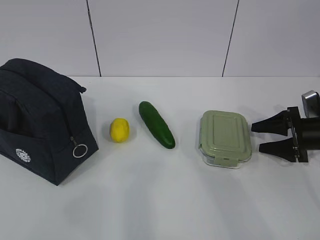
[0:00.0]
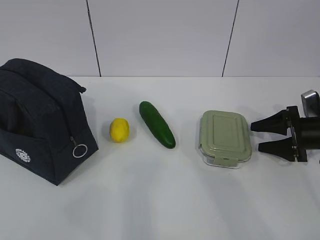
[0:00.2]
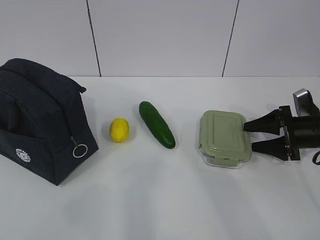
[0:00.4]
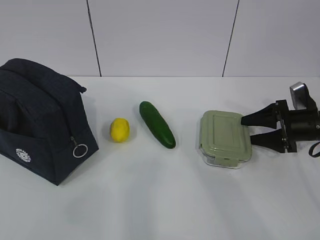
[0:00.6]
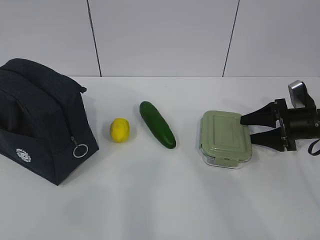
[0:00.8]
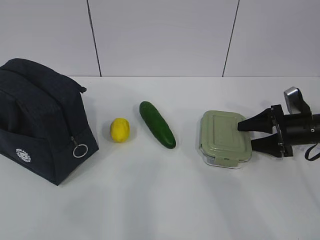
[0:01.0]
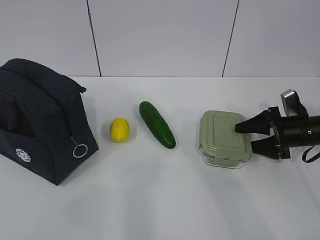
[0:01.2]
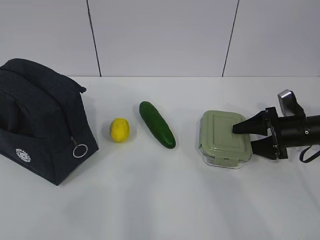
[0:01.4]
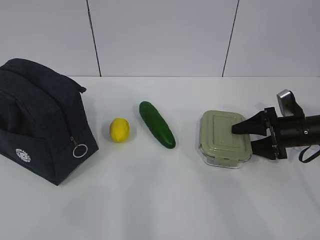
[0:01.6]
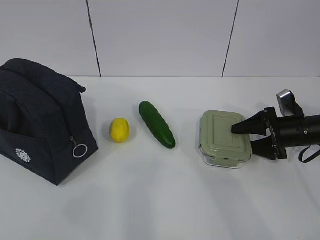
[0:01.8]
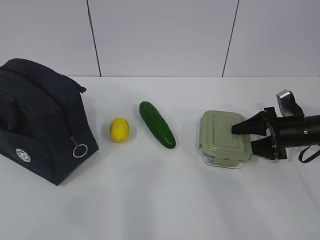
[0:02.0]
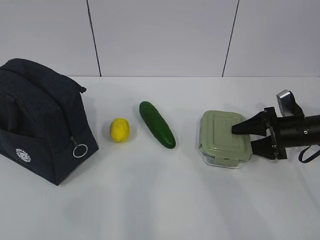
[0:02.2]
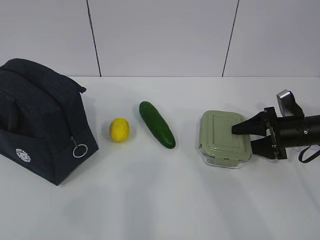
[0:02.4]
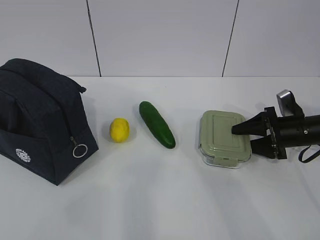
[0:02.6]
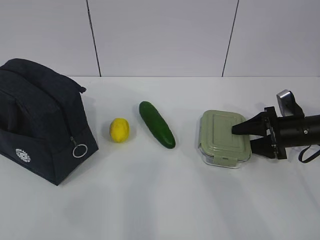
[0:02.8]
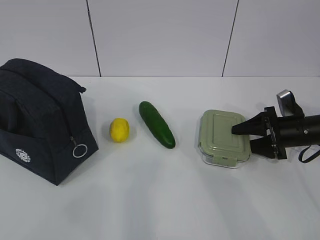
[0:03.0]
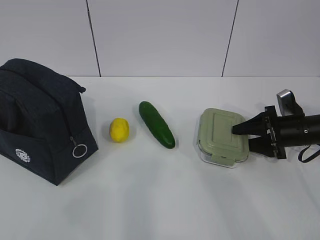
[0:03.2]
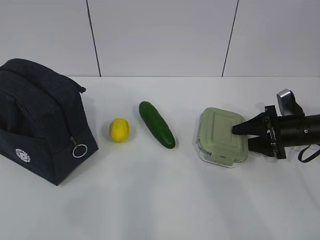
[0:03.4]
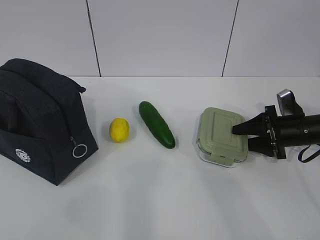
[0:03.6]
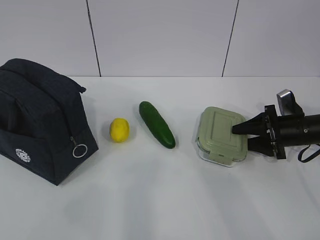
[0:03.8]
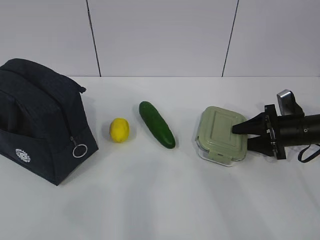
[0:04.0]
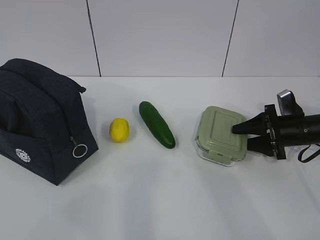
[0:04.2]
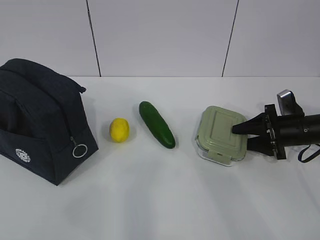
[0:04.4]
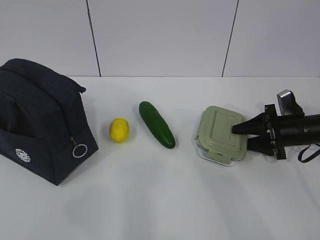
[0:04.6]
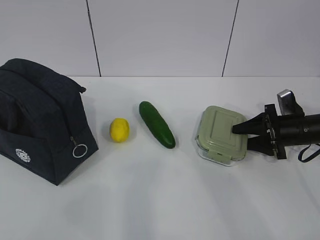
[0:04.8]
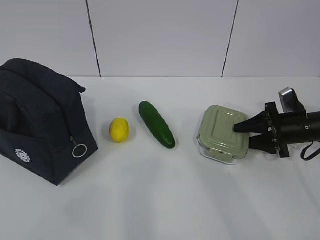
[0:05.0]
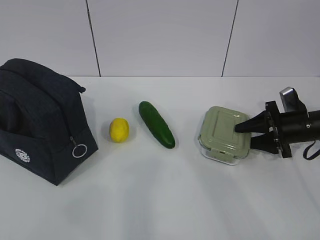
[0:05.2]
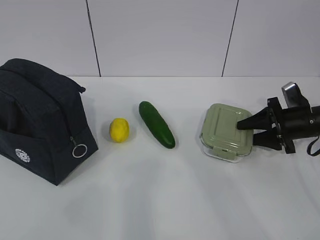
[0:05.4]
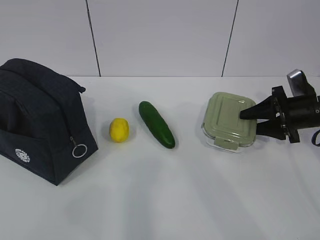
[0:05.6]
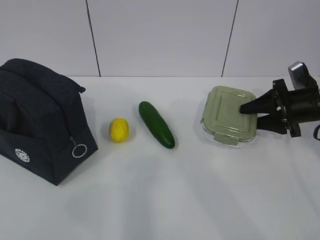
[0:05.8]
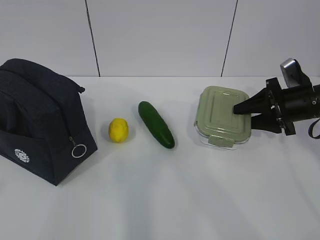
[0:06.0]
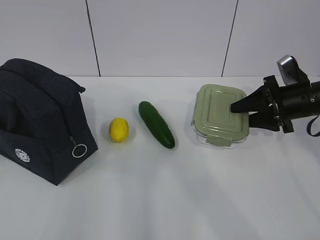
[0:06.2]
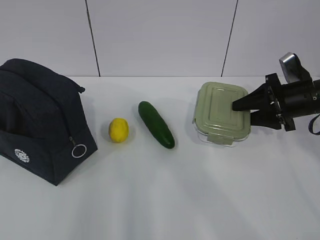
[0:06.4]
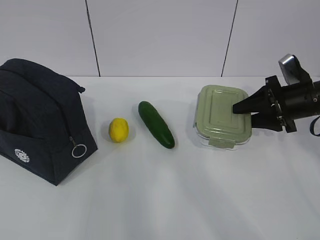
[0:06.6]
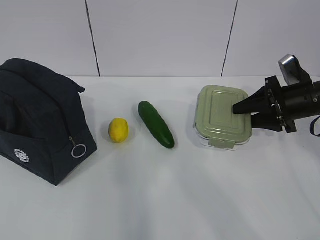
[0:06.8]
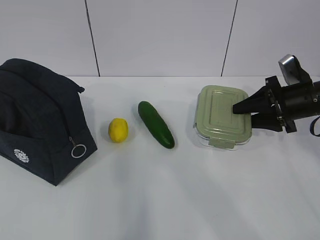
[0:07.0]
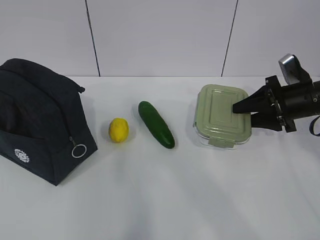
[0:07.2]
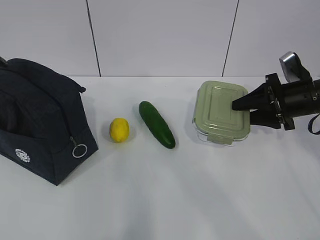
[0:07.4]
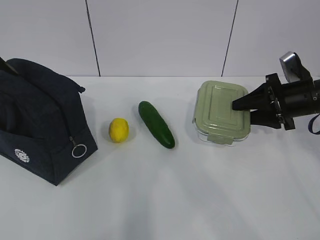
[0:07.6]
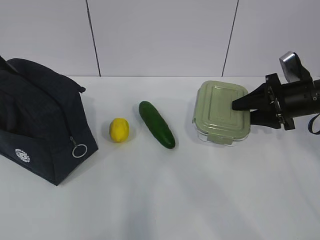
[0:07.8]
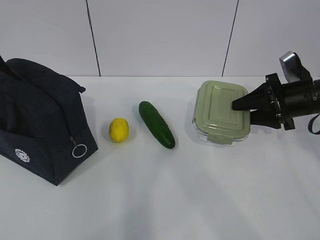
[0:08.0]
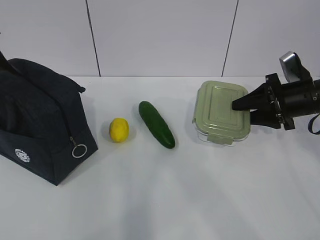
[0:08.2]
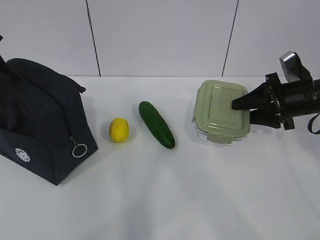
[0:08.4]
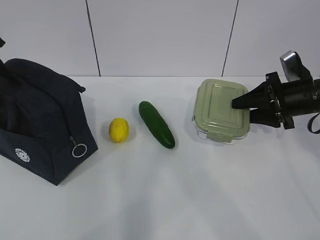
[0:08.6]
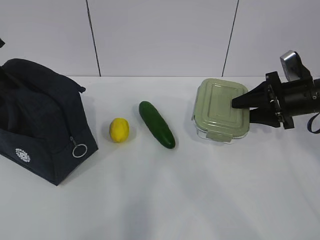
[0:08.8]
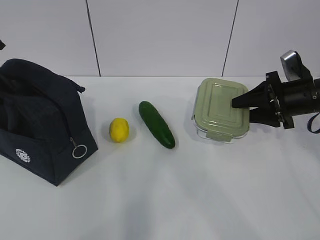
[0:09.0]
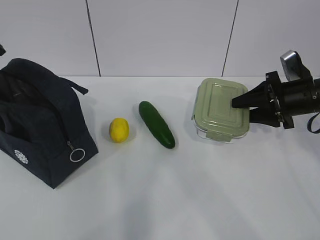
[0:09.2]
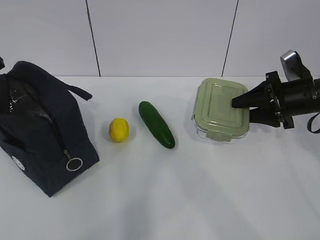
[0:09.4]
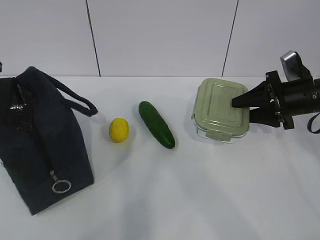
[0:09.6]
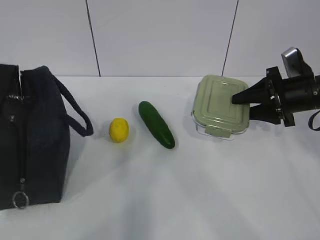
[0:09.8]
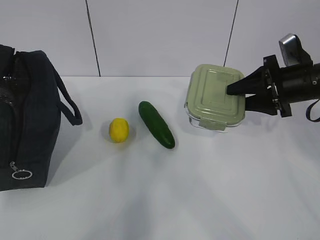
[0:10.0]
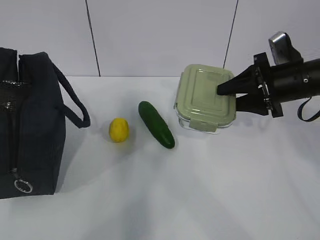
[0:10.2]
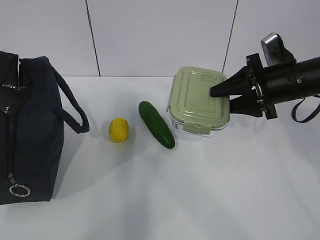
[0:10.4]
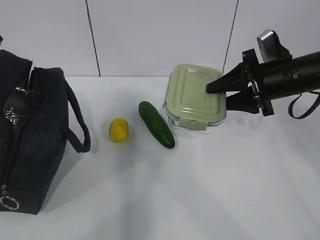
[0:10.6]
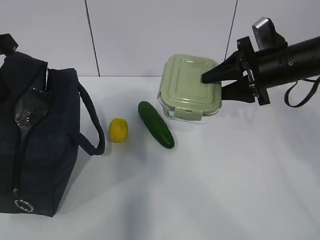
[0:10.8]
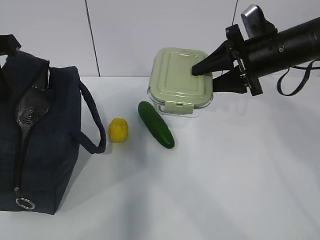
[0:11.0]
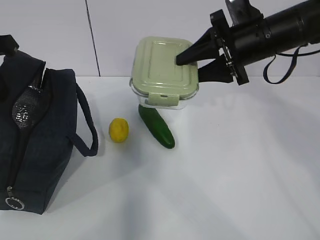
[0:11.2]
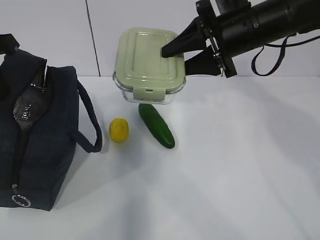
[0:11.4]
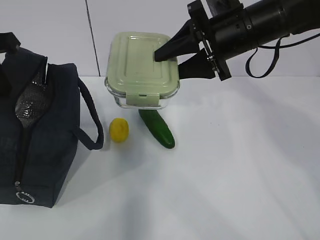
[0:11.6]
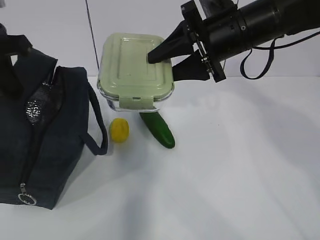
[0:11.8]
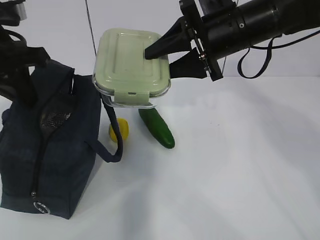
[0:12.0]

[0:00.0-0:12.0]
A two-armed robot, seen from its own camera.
Step, 0:00.0 to 0:02.2: Grab the lunch box with your right hand.
Step, 0:02.4 to 0:09.0: Grab the lunch bag with your left hand.
Step, 0:09.2 to 0:11.4: Place it into the bag with your right hand.
0:00.0 to 0:01.6: There are only small adjustments of the grippers.
0:01.6 to 0:04.4: Neither gripper changes place.
0:04.4 to 0:06.0: The right gripper goes about 10 cm upward.
0:09.0 to 0:10.4: The right gripper heads to the left, covering approximately 5 cm, while the left gripper heads upward, covering about 5 cm, and closes.
0:10.4 to 0:12.0: The right gripper is displaced to the left and upward by about 15 cm, while the left gripper is displaced to the right by roughly 10 cm.

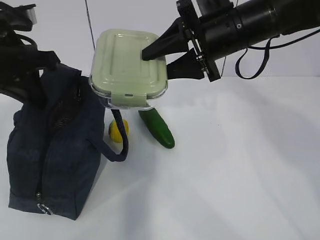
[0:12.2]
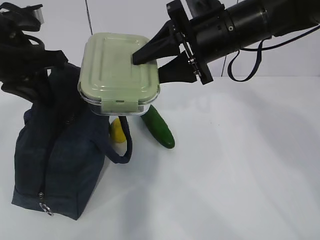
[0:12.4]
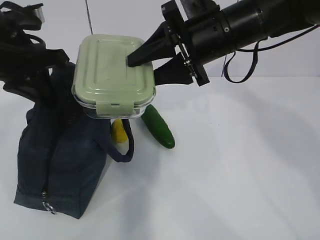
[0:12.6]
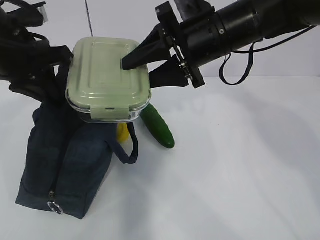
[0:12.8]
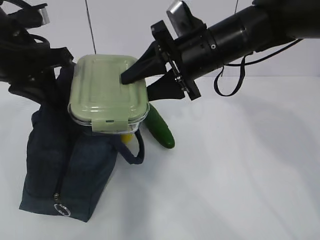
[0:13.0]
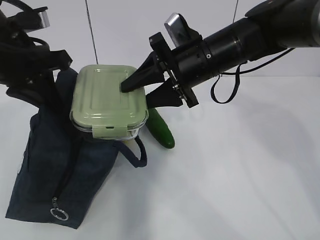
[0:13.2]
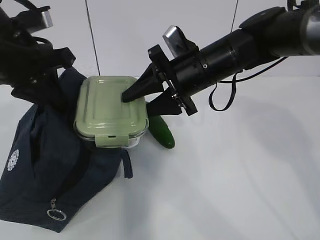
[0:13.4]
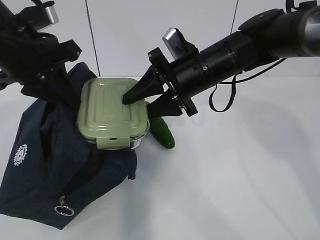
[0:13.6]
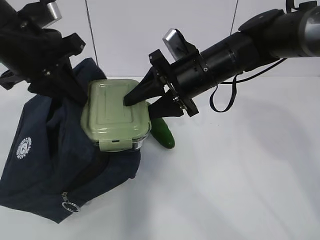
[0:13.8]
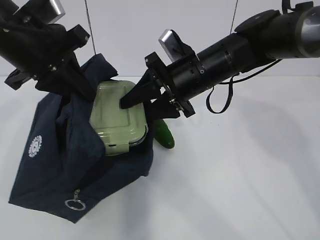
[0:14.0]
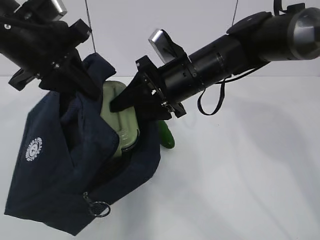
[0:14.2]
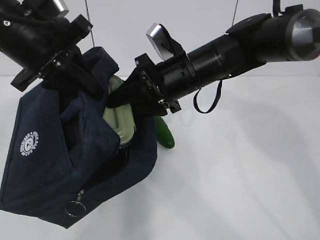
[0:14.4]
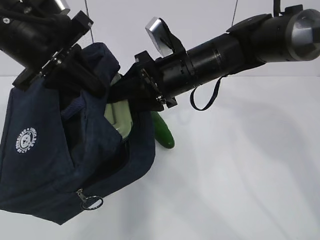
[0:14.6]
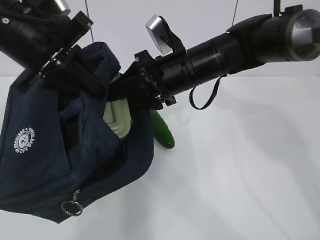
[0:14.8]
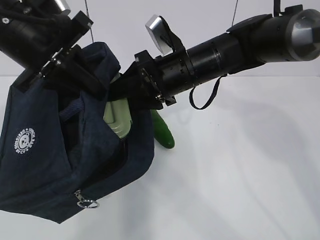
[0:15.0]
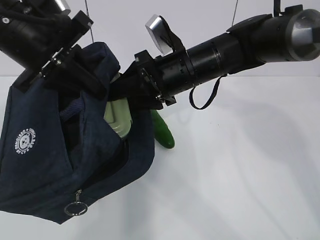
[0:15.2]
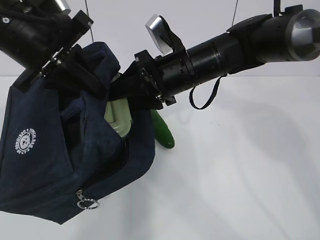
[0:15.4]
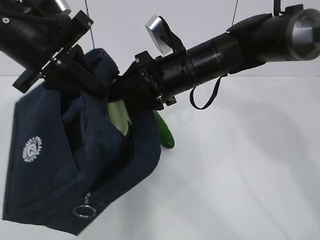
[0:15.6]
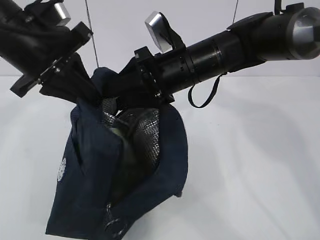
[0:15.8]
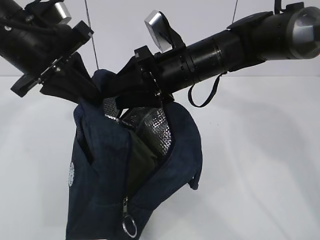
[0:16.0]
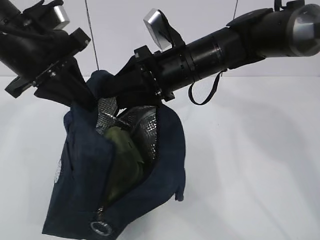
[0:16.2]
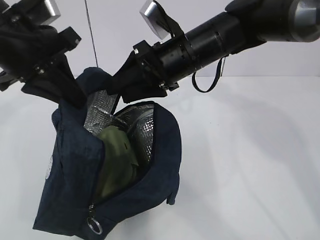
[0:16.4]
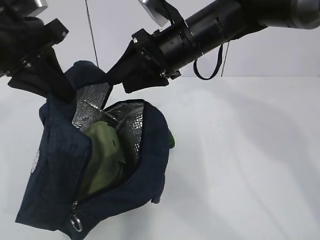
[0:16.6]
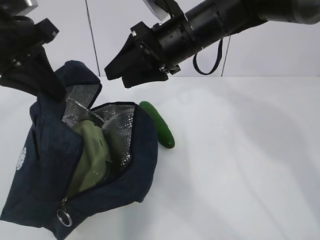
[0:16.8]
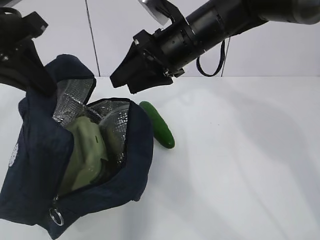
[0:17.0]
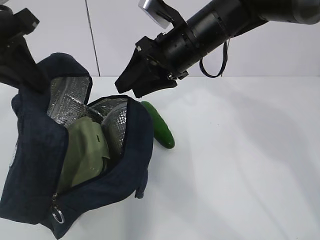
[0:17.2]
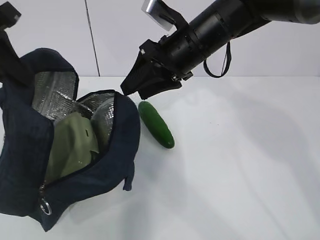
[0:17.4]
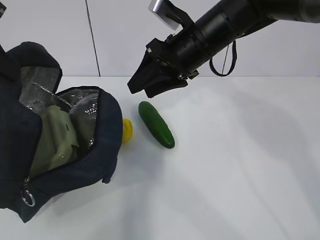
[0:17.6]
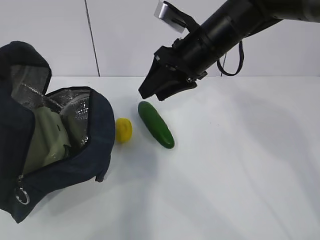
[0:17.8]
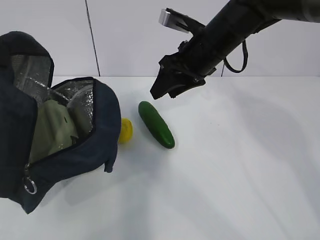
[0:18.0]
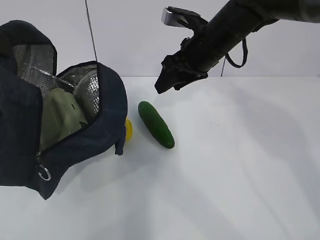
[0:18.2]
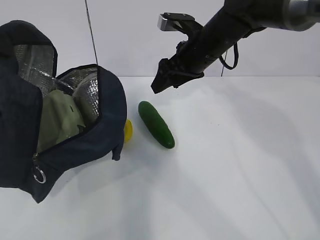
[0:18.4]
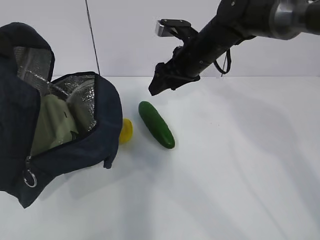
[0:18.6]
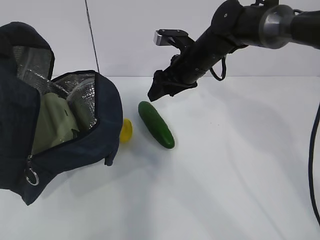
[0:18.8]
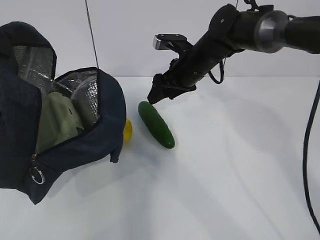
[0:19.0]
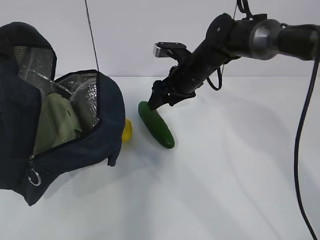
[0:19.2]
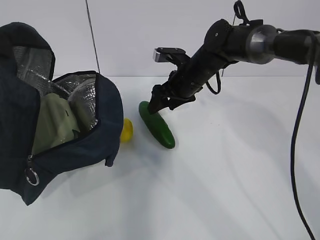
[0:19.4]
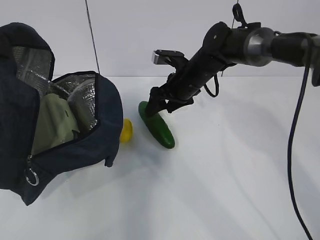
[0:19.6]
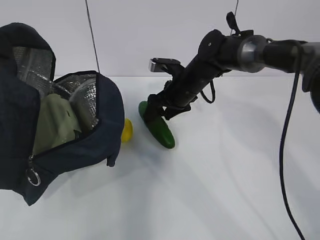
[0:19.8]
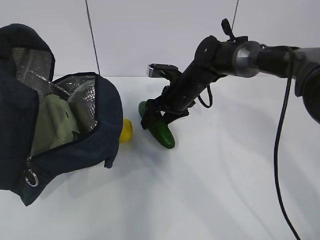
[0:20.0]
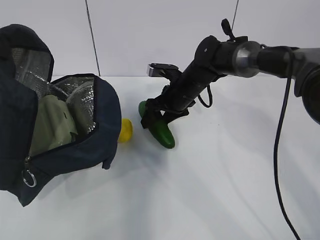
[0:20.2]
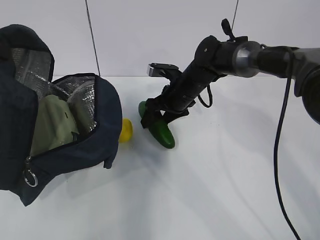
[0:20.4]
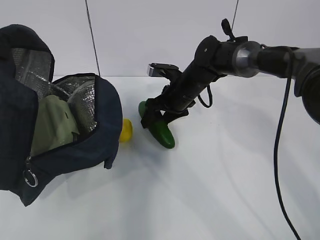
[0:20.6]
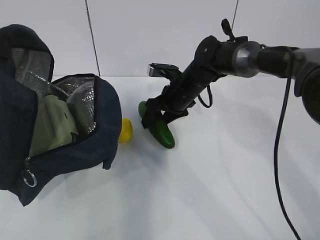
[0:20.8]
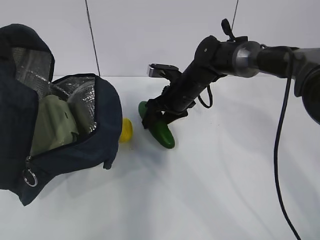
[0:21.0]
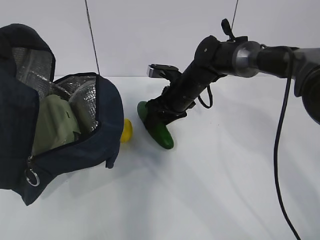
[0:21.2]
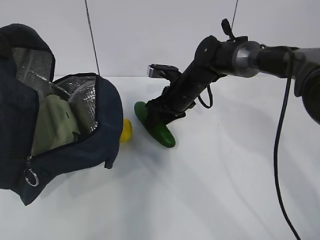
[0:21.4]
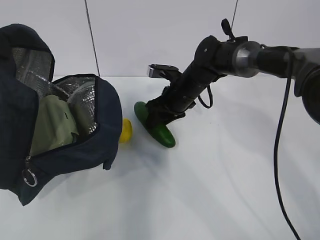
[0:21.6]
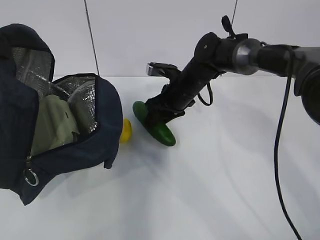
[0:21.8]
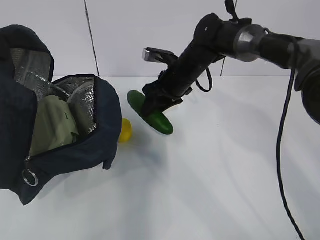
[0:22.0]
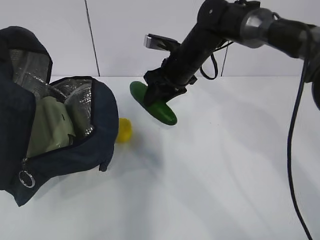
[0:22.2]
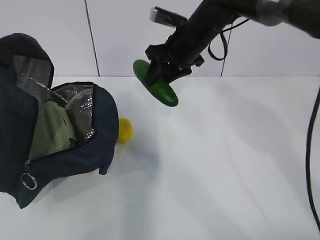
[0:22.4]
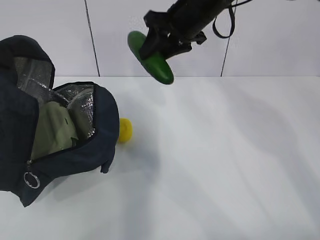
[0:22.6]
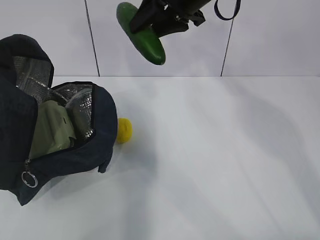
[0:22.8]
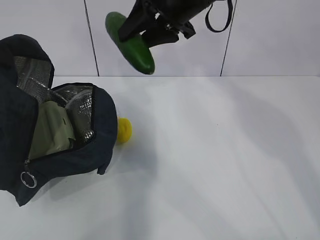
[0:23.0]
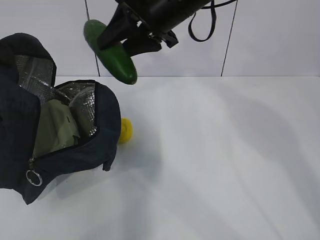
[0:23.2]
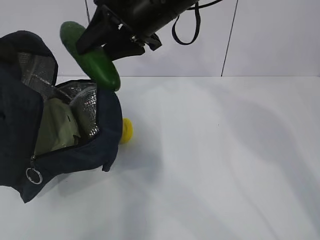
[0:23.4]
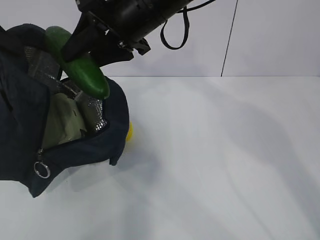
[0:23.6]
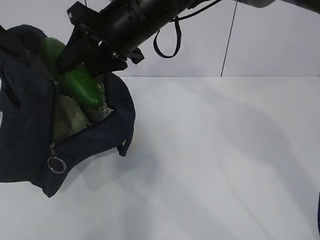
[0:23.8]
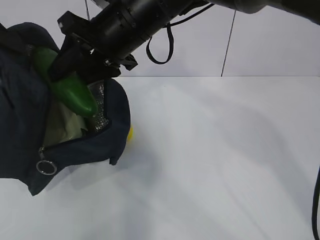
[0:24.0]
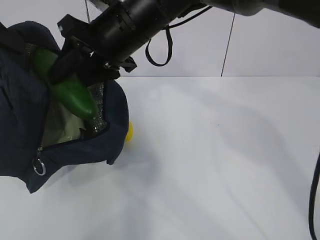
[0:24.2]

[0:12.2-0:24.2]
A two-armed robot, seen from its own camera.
Step, 0:12.2 to 0:16.2: Grab the cucumber with your right hand.
Step, 0:16.4 to 0:19.2: Place it into the bag with your right hand.
Step, 0:19.4 to 0:22.8: Grab the lemon with your right hand.
0:12.2 to 0:13.8: The right gripper is displaced downward by about 5 cm.
0:16.6 to 0:18.2: The left gripper moves to the left, roughly 10 cm. Meanwhile the right gripper changes place by about 5 cm.
0:18.2 to 0:19.8: The right gripper moves downward and forward, approximately 15 cm.
0:19.8 to 0:21.2: There are only small adjustments of the grippers.
0:21.2 to 0:22.6: The right gripper travels upward by approximately 20 cm.
0:22.6 to 0:24.2: The right gripper shifts roughly 15 cm to the left and backward.
